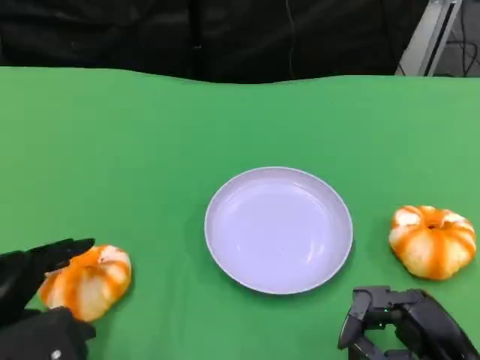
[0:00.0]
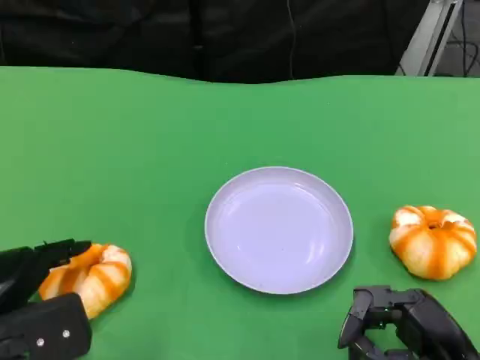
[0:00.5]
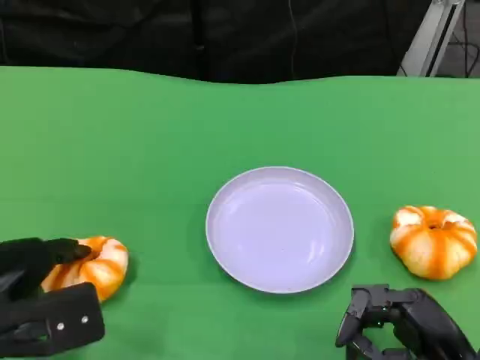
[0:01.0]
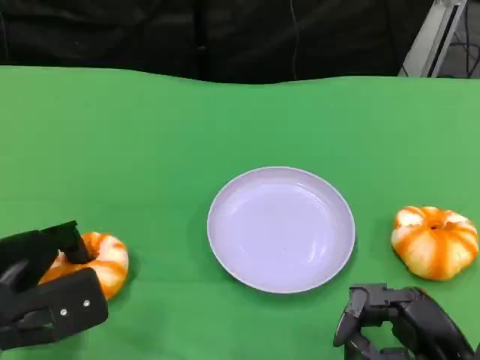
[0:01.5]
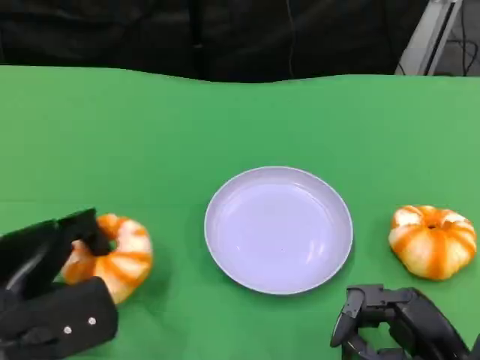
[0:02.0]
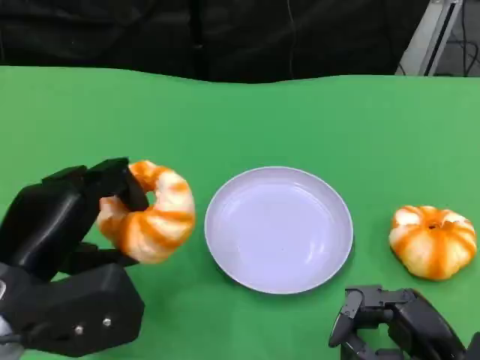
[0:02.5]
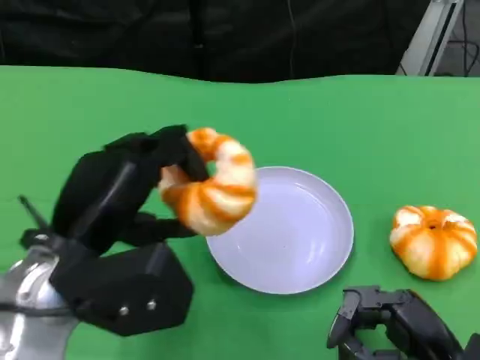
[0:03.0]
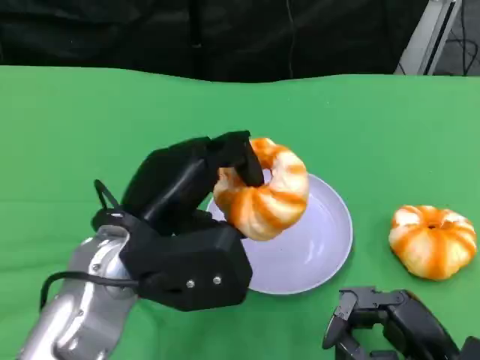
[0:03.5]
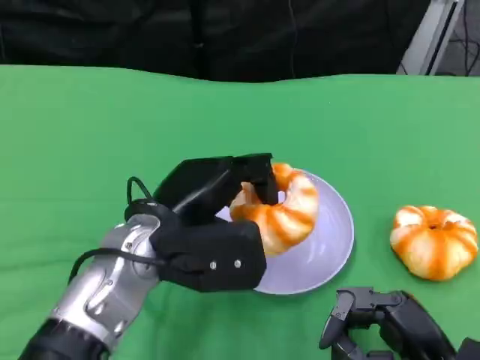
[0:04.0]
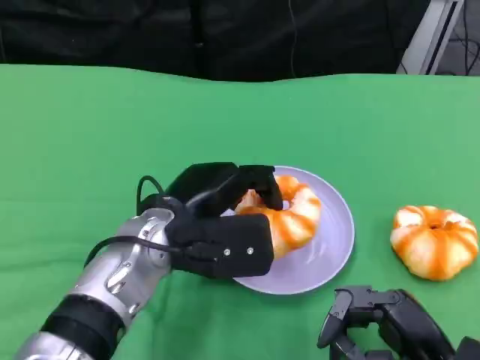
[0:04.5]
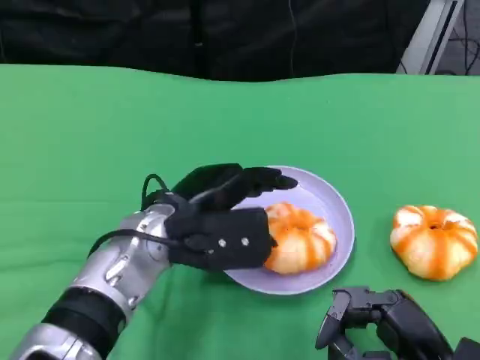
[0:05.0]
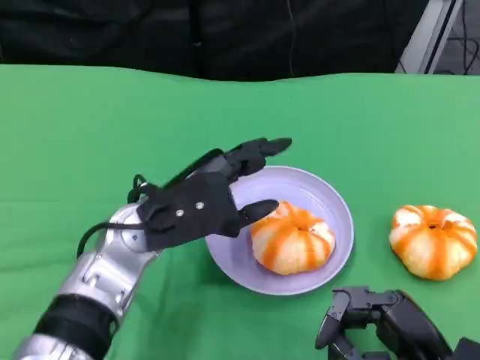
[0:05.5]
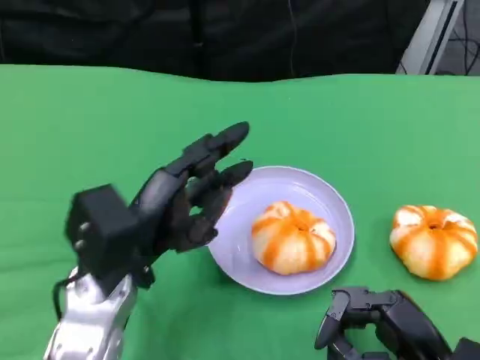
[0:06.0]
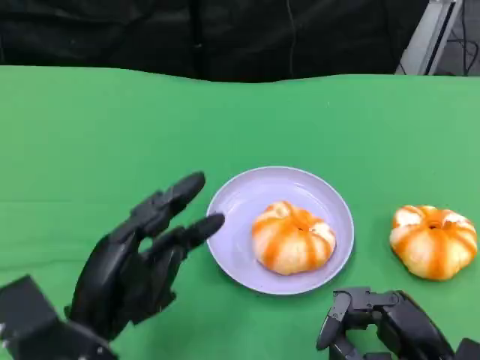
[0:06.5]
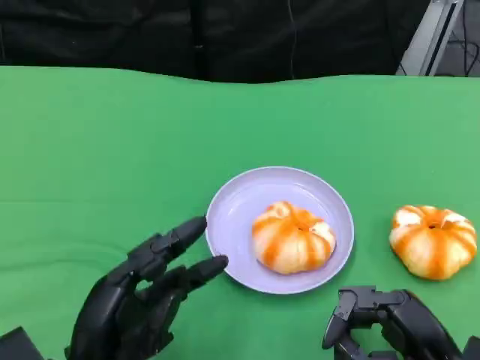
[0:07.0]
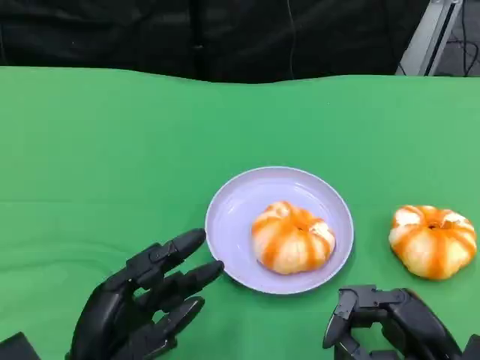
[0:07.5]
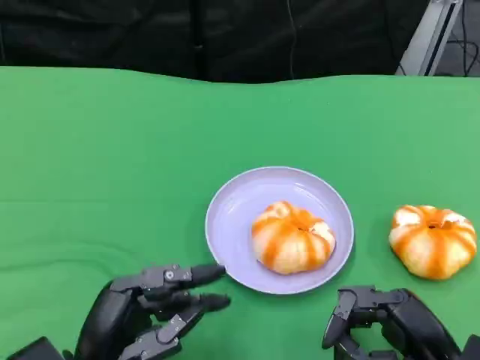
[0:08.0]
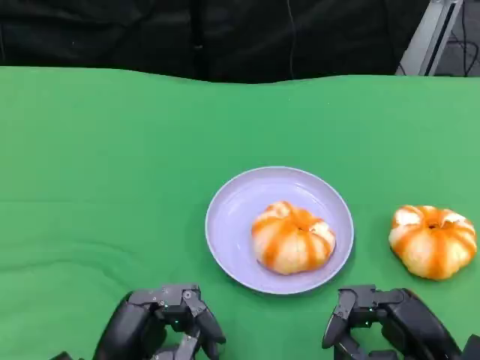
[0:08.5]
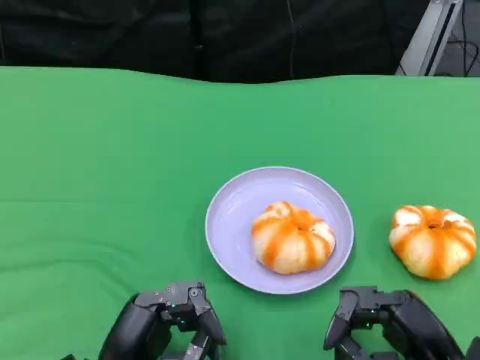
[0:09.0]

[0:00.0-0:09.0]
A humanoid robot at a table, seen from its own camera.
Task of the whole recording: Grasp the bread from the table and place it into the plate.
0:00.0 to 0:02.0: There are only small adjustments of the hands.
0:02.0 to 0:04.5: The left hand shifts approximately 15 cm to the right and forward.
0:04.5 to 0:07.0: The left hand heads backward, to the left and downward, covering roughly 15 cm.
0:07.0 to 0:09.0: The hands move only a little.

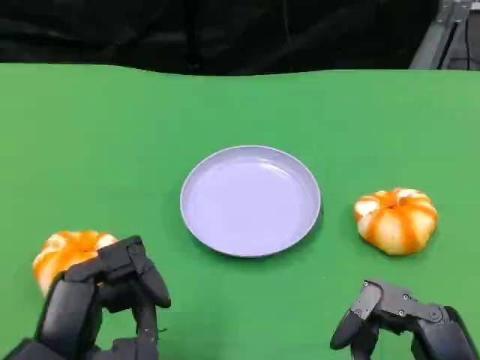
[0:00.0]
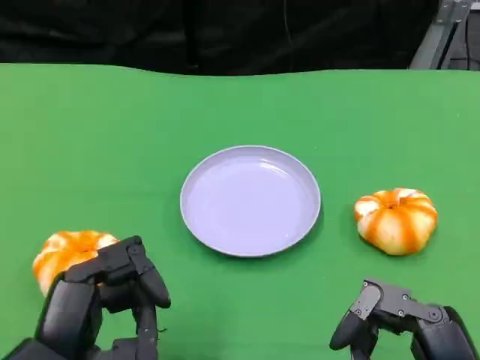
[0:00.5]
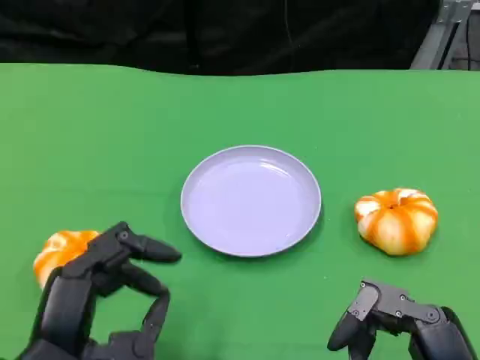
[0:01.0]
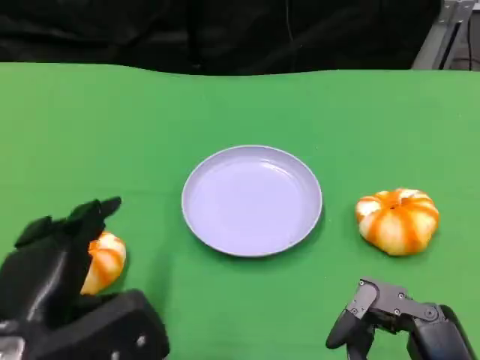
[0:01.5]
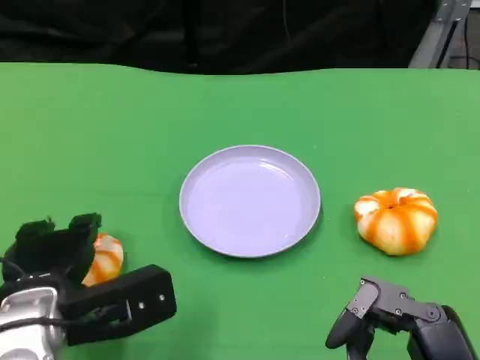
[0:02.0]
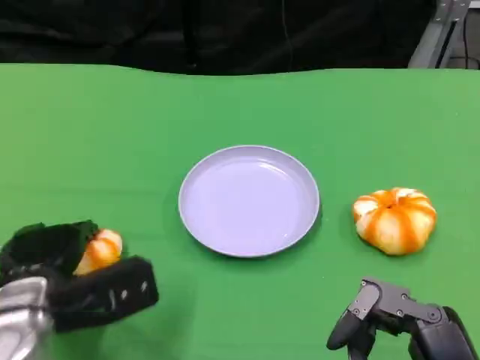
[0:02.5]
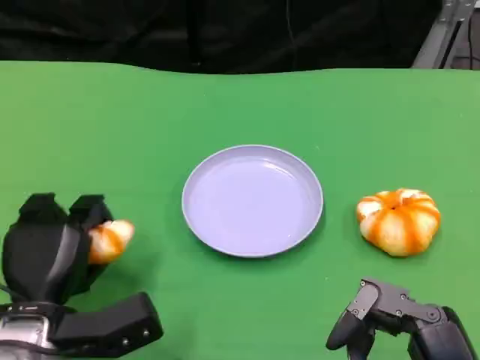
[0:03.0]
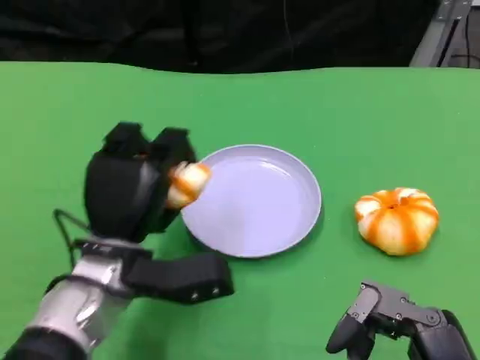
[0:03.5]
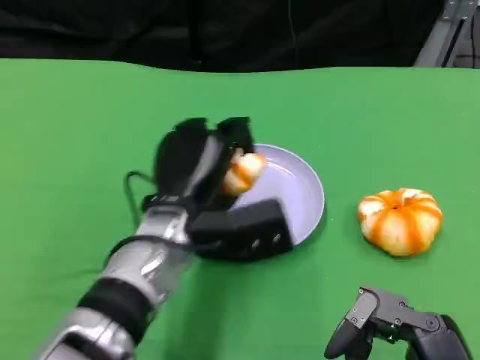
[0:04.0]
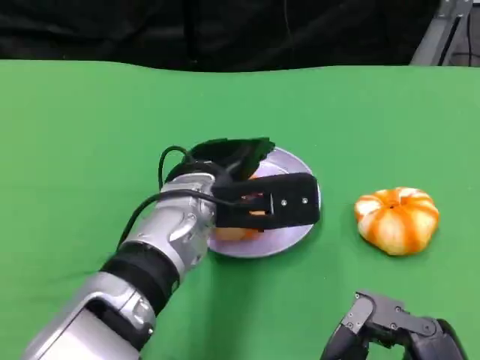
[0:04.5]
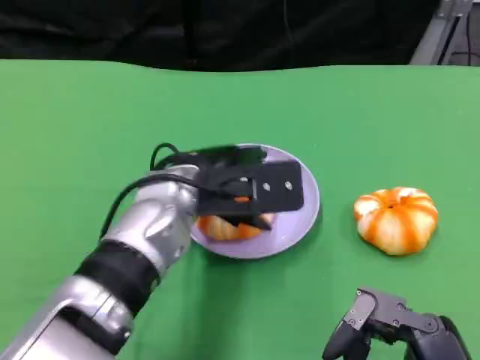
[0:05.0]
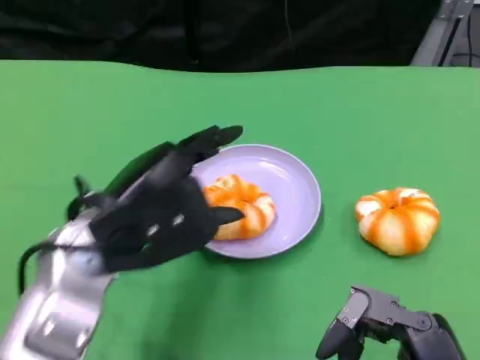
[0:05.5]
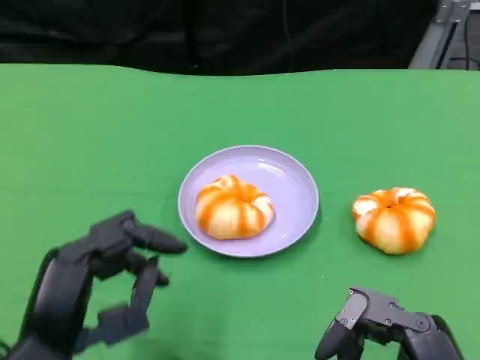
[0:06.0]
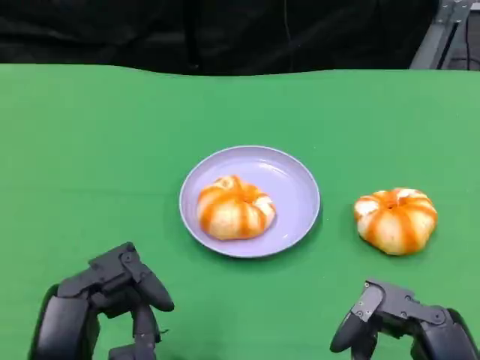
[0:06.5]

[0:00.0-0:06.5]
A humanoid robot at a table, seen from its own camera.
Task of the whole recording: Grasp the bread from the table and place it into the plate.
0:00.0 to 0:02.0: The left hand travels forward by approximately 10 cm.
0:02.0 to 0:04.5: The left hand goes about 15 cm to the right and forward.
0:04.5 to 0:06.5: The left hand is displaced backward and to the left by about 25 cm.
